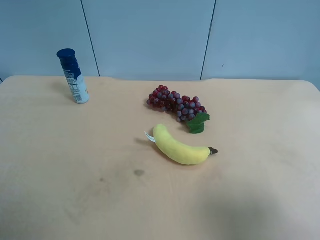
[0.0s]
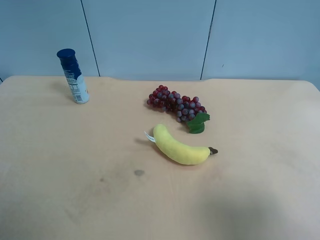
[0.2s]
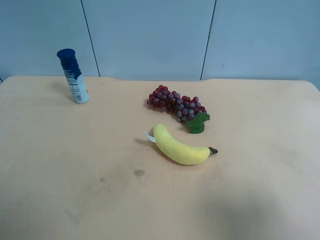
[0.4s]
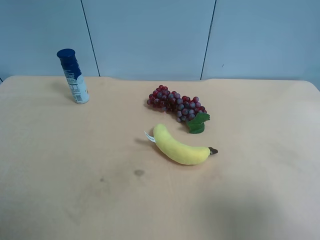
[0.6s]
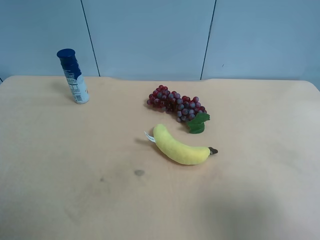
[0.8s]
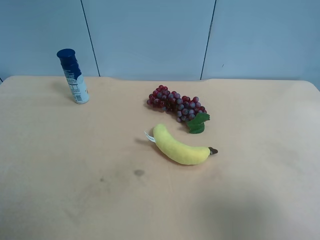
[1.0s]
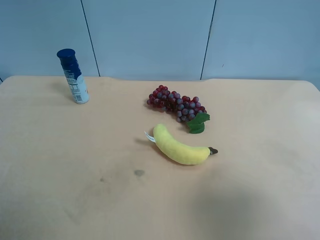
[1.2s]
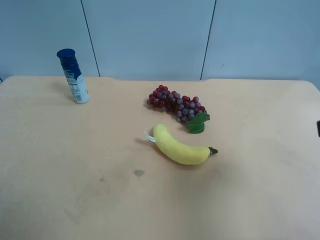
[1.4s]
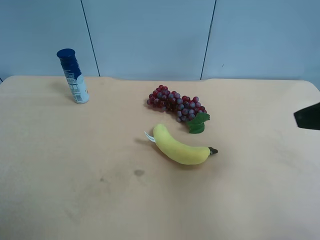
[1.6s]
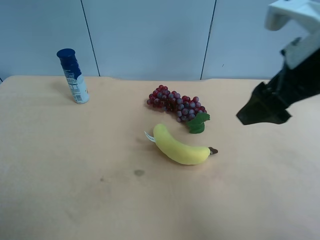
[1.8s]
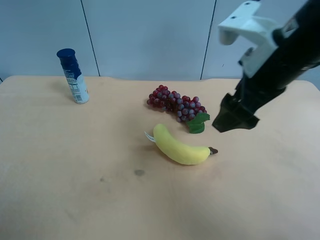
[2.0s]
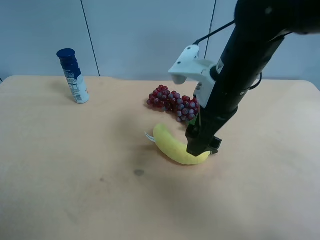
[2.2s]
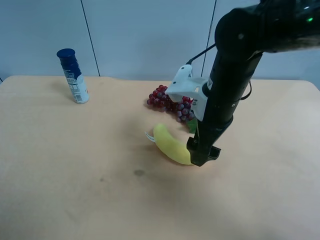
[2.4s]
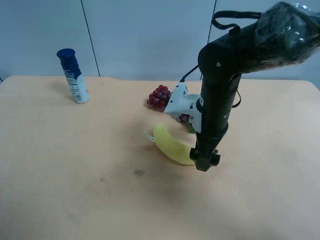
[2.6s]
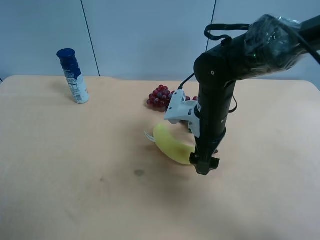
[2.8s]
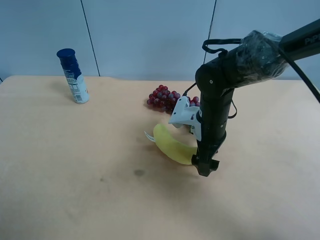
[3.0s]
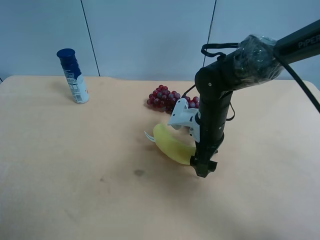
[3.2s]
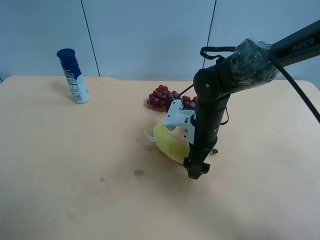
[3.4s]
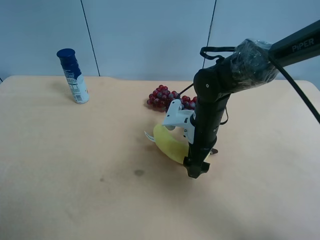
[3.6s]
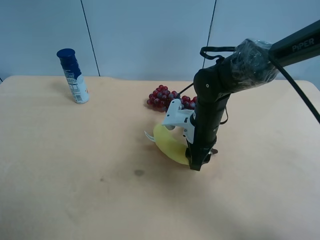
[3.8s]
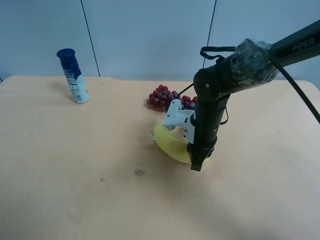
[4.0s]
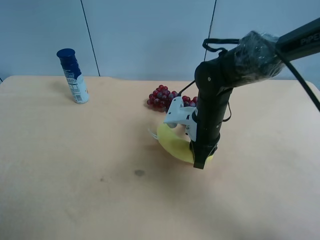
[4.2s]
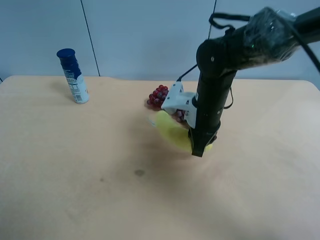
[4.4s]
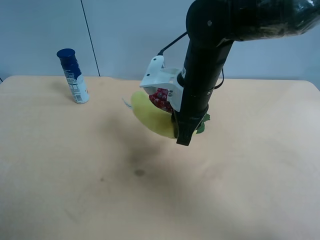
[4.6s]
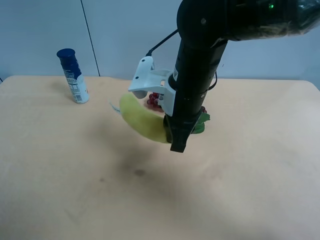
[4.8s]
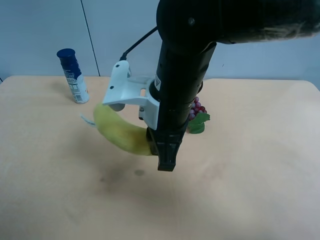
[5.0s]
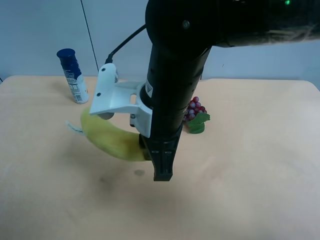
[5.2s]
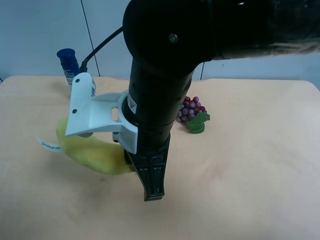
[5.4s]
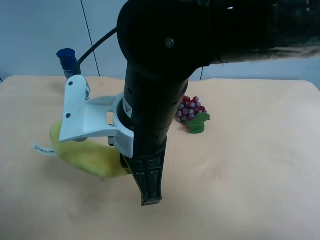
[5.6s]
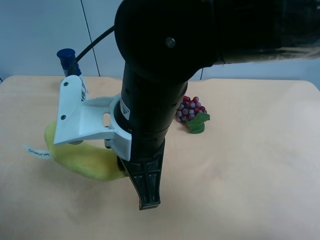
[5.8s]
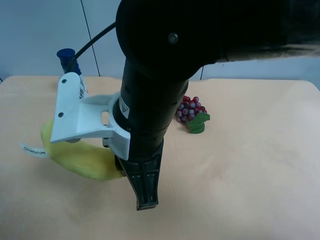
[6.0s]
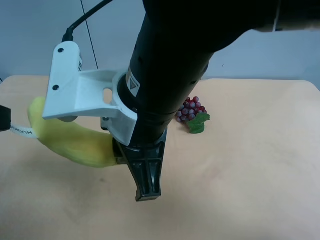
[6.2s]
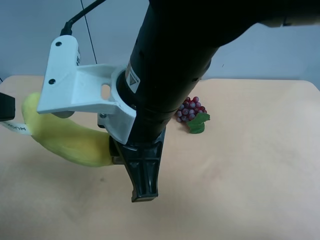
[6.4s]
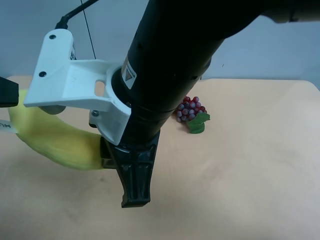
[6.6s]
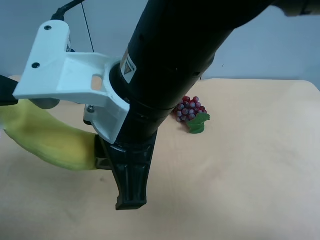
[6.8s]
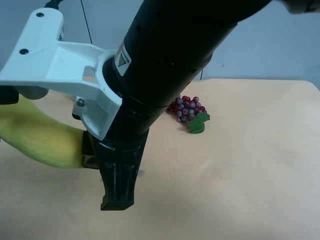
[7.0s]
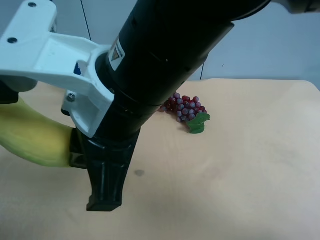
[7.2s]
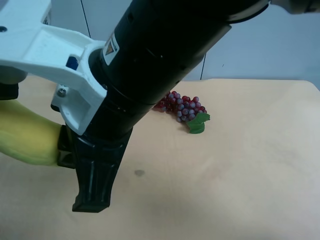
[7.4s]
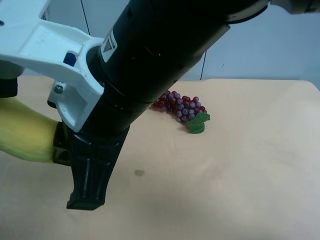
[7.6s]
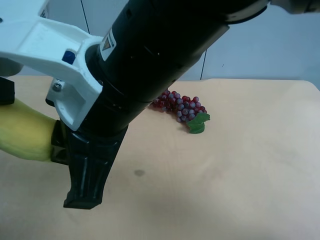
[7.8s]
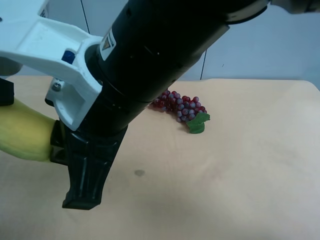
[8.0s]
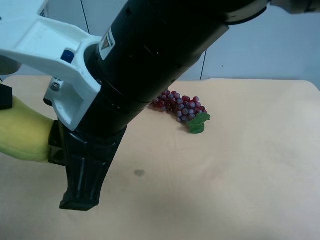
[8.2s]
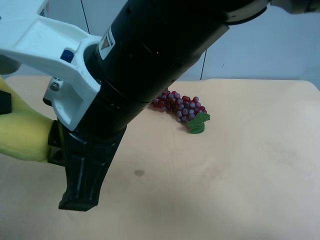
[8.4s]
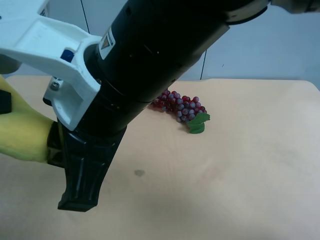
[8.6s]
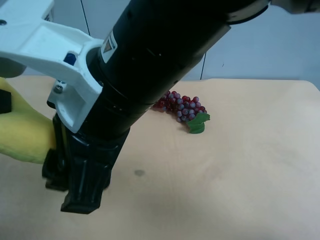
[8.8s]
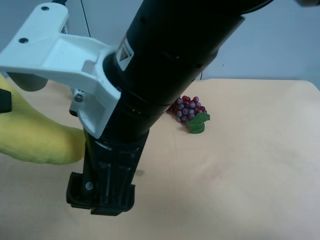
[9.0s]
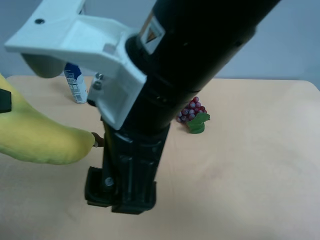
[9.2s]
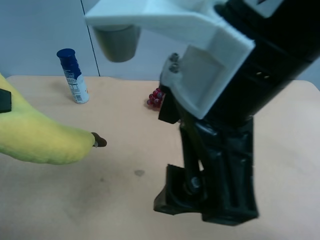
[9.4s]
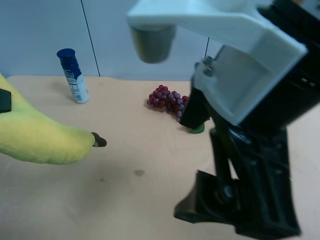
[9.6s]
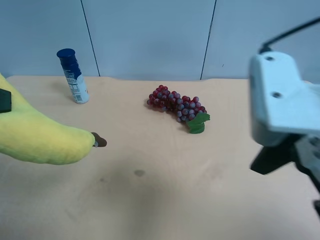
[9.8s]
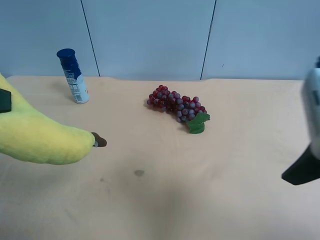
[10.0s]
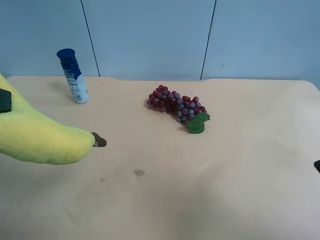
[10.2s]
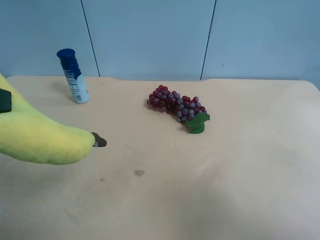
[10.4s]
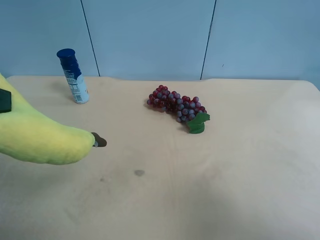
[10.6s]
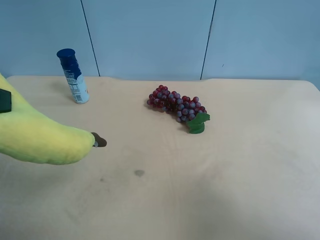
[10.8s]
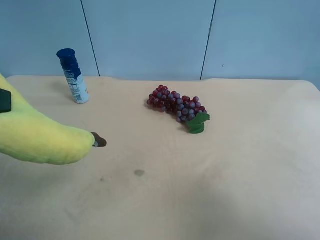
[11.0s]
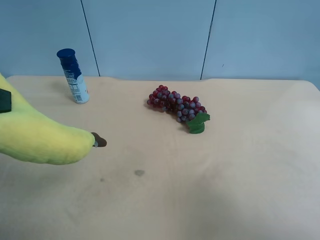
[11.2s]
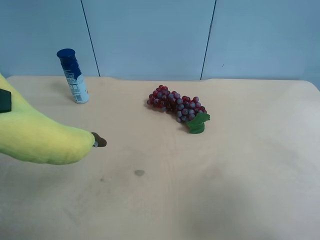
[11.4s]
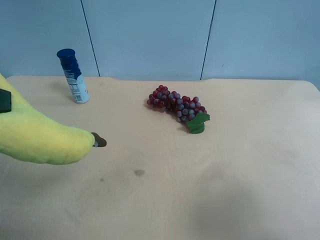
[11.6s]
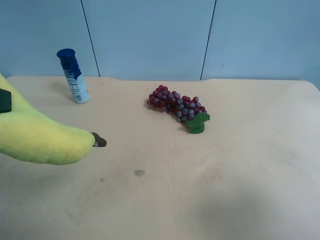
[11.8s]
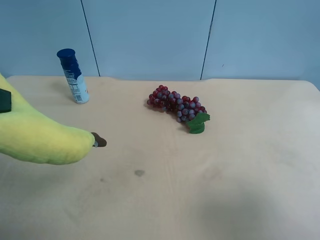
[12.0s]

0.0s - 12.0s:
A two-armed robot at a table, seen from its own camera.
Task of the whole recording: use the right gripper to pick up the item and transfer it from the right gripper to the left gripper.
0.0s - 1.6s: The right gripper heads forward, covering some 15 cm.
1.6s - 3.0s: The right gripper heads downward, forward and to the left, covering roughly 30 cm.
3.0s - 4.4s: The right gripper travels upward by about 5 cm, and closes up.
4.4s - 6.0s: The right gripper shifts approximately 20 cm backward, to the left and upward. Meanwhile the left gripper goes approximately 5 cm forward.
6.0s - 7.6s: The right gripper heads upward, covering about 5 cm.
7.6s - 9.0s: The right gripper opens its fingers. The left gripper closes up.
9.0s - 10.4s: The right gripper is displaced to the right by roughly 30 cm.

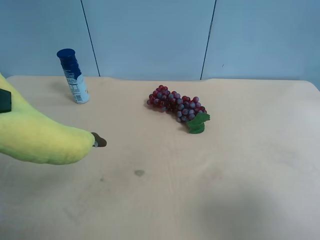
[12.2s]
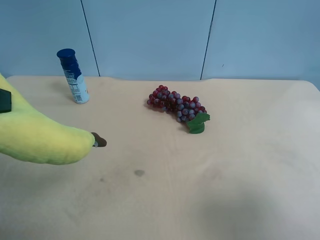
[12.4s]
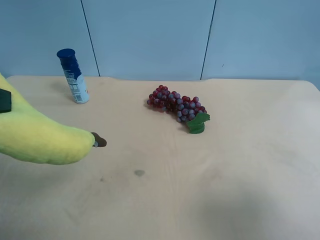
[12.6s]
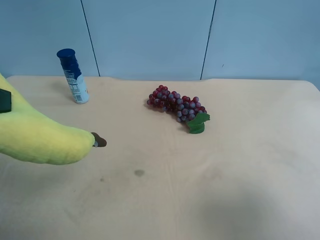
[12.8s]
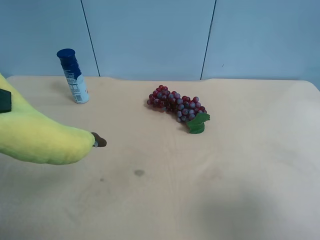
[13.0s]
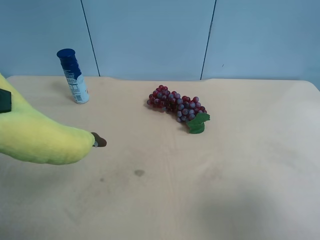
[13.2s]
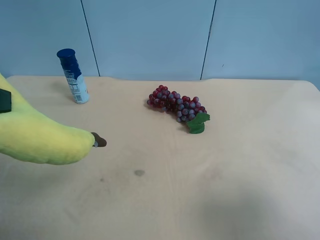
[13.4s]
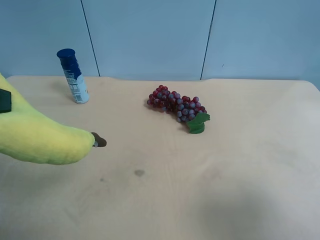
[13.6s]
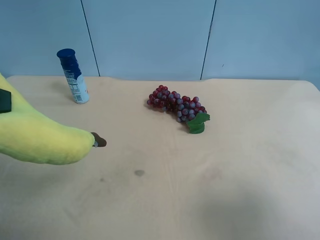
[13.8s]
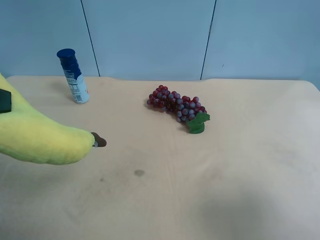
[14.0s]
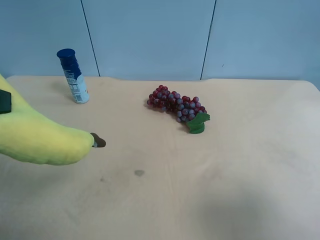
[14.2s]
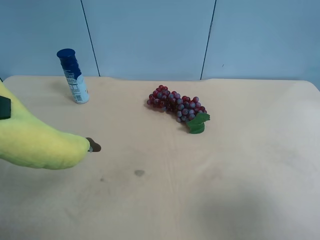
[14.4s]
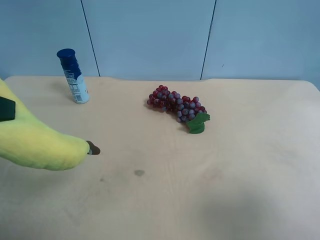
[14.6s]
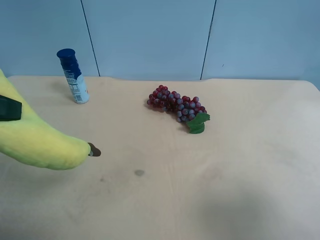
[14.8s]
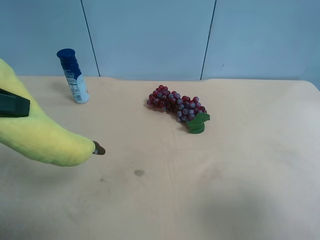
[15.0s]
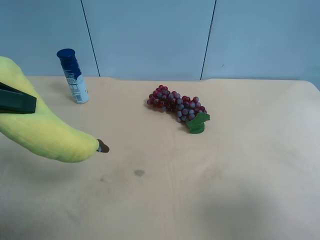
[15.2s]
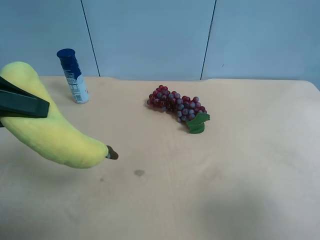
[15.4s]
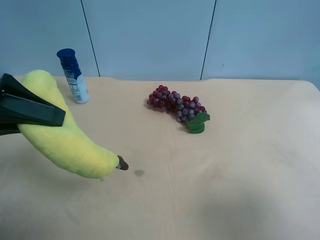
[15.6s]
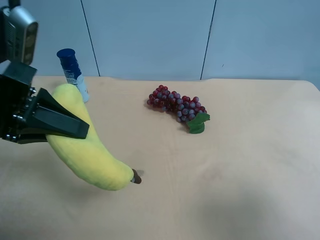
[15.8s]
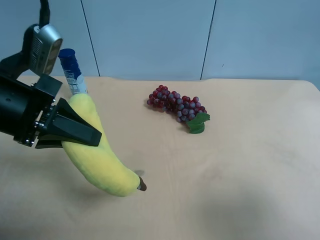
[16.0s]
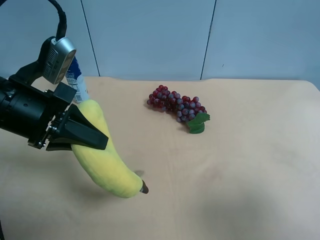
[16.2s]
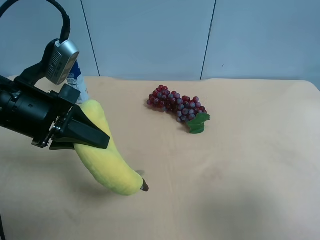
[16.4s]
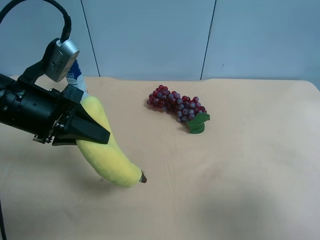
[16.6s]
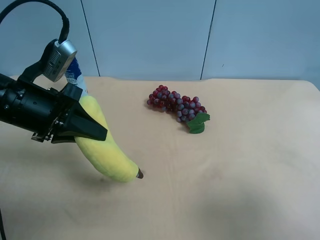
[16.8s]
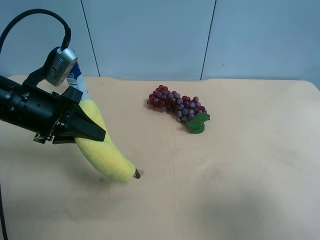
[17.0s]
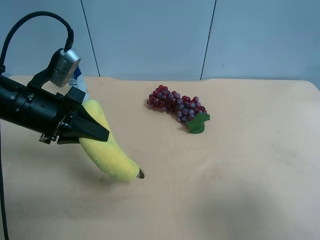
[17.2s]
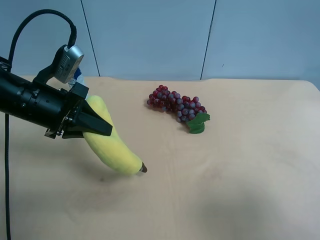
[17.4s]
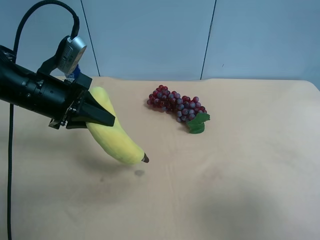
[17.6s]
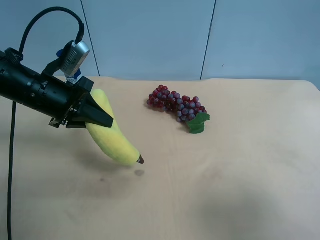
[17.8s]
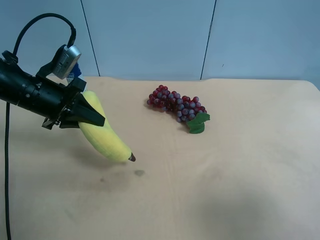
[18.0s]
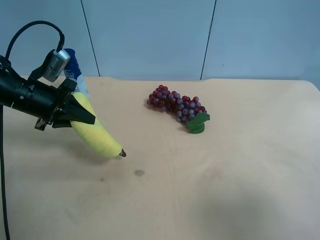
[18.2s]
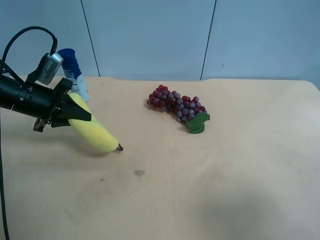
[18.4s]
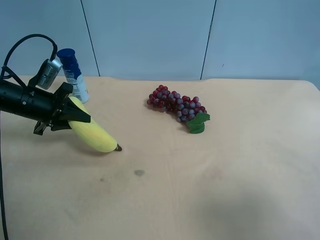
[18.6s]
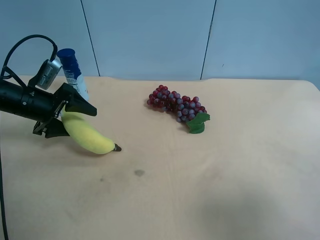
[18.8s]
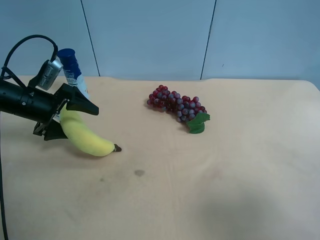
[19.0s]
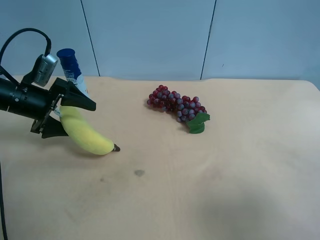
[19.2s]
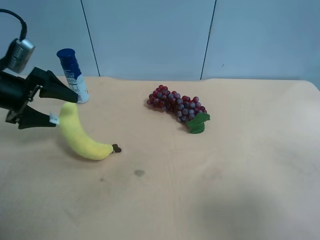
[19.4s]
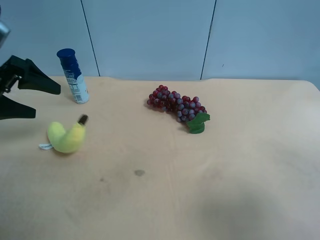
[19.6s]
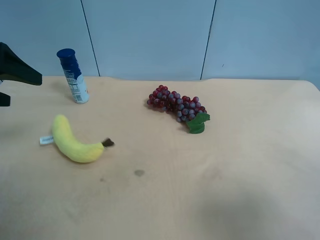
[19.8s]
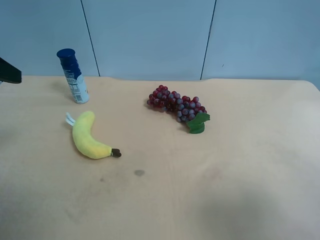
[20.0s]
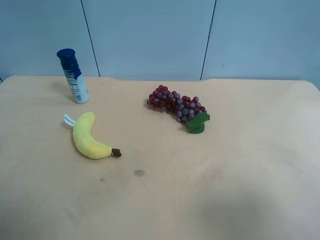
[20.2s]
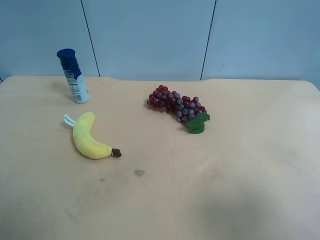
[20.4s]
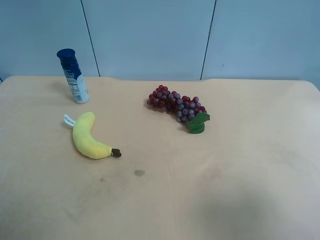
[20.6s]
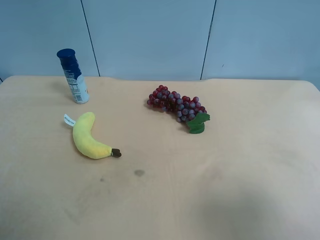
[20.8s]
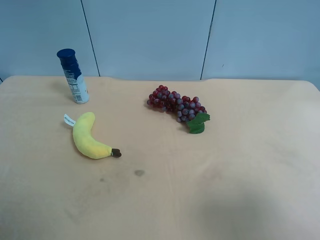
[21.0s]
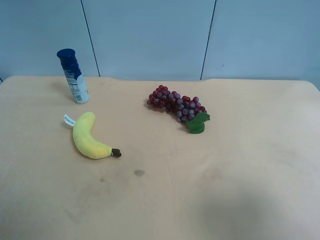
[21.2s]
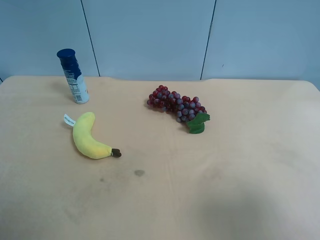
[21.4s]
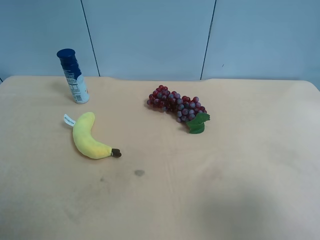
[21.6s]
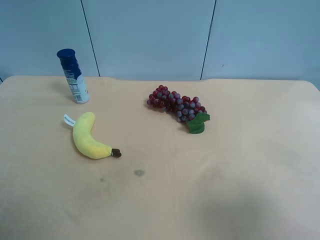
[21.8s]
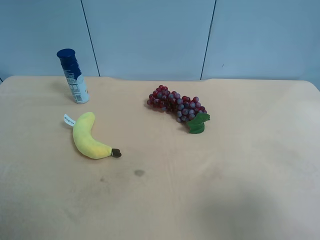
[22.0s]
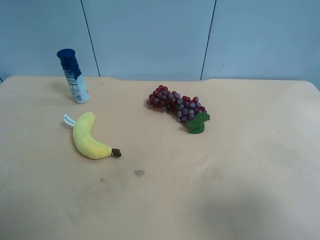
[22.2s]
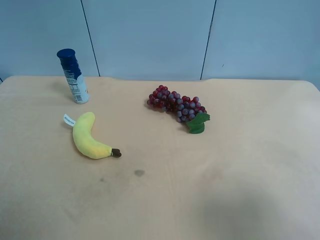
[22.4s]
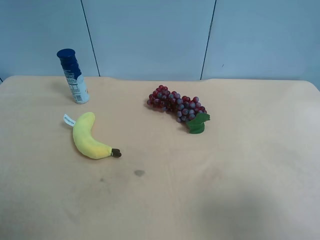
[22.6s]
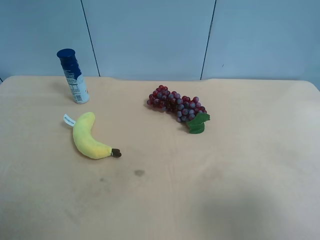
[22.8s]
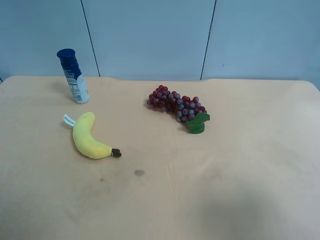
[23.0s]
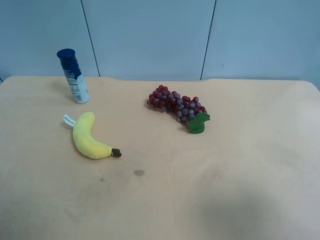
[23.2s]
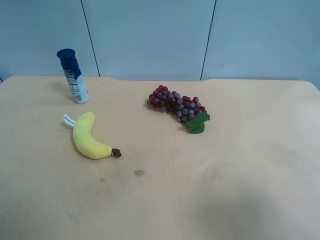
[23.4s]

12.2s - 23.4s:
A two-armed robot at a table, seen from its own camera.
Task of the whole recording: use the right gripper to pick up the item and transfer it from the right gripper to the left gripper.
12.2s - 13.8s: Both grippers stay put.
13.8s - 15.4s: The left gripper moves forward, about 5 cm.
15.4s - 17.0s: The left gripper travels downward and forward by approximately 10 cm.
17.0s - 18.6s: The left gripper heads forward, to the left and downward, covering approximately 15 cm.
18.6s - 20.2s: The left gripper shifts some 25 cm upward and backward, and opens up.
21.8s - 23.4s: Neither gripper changes place.
